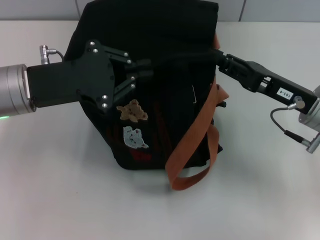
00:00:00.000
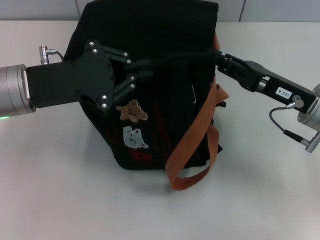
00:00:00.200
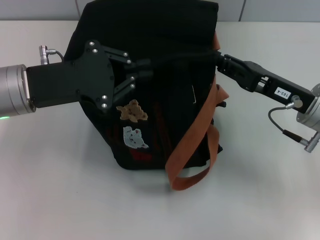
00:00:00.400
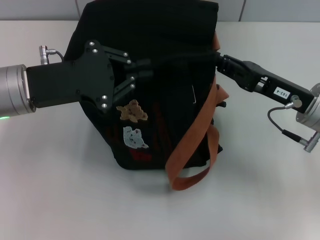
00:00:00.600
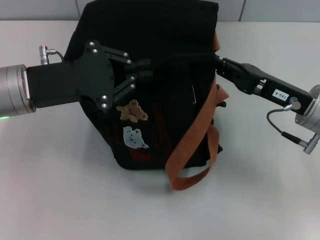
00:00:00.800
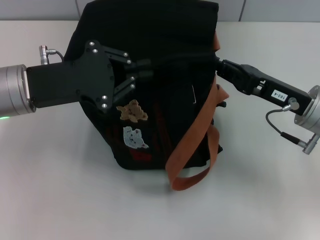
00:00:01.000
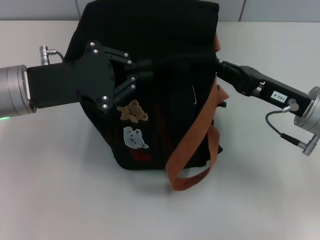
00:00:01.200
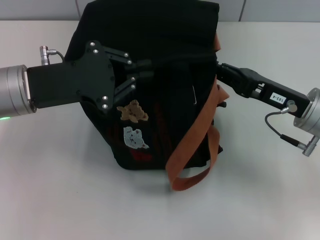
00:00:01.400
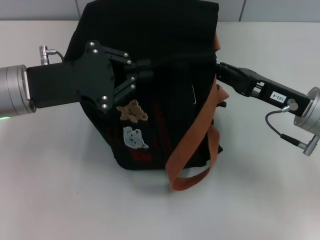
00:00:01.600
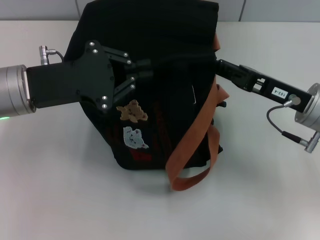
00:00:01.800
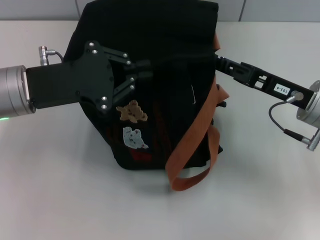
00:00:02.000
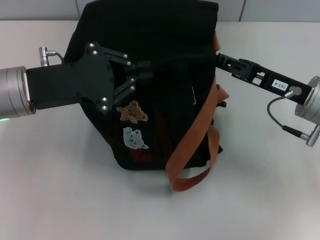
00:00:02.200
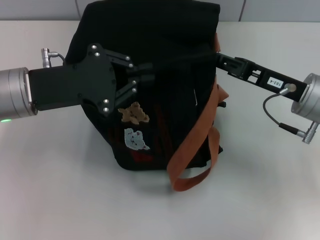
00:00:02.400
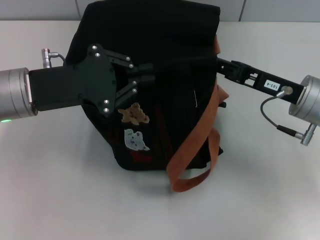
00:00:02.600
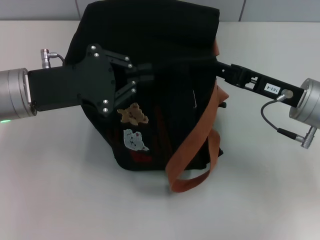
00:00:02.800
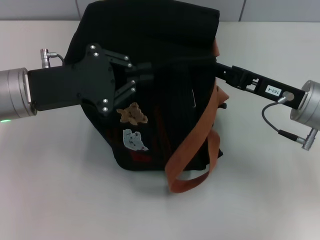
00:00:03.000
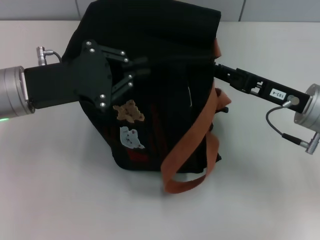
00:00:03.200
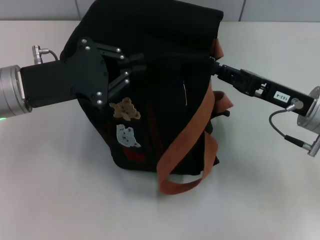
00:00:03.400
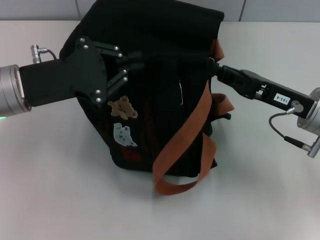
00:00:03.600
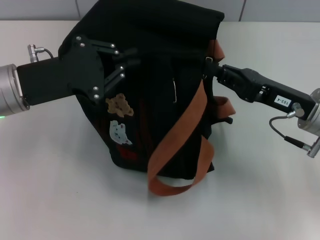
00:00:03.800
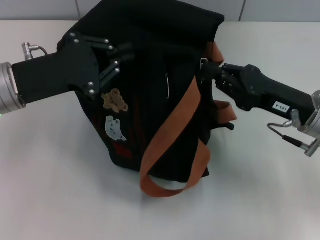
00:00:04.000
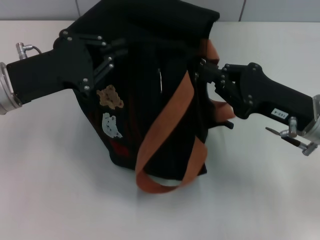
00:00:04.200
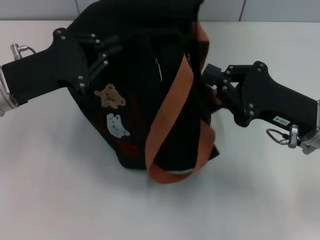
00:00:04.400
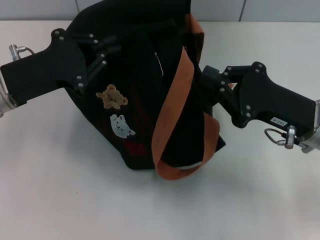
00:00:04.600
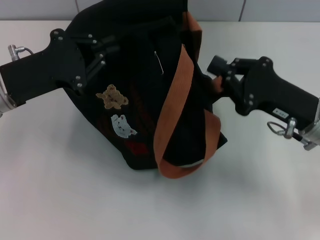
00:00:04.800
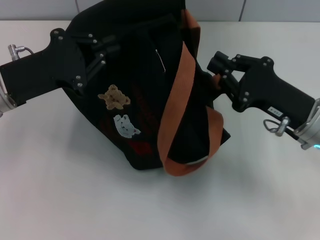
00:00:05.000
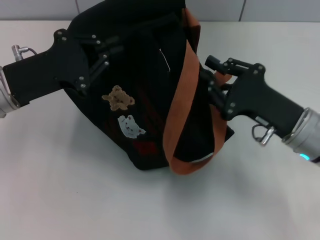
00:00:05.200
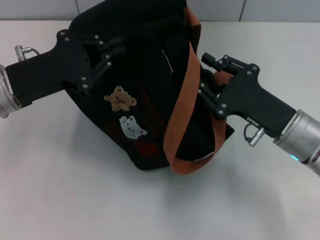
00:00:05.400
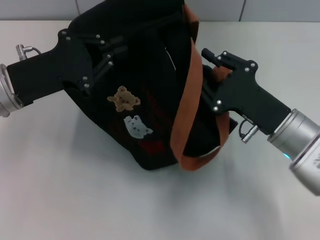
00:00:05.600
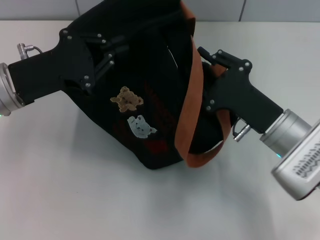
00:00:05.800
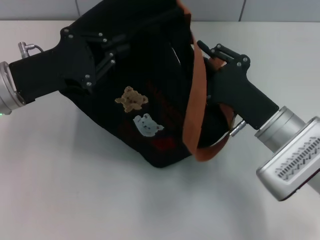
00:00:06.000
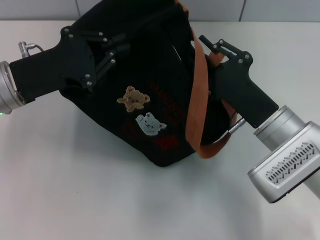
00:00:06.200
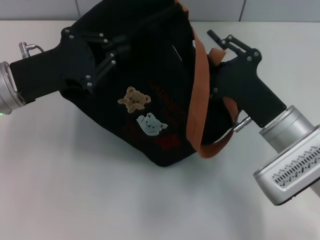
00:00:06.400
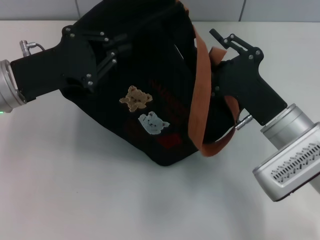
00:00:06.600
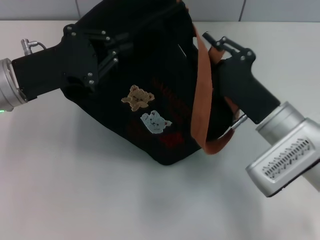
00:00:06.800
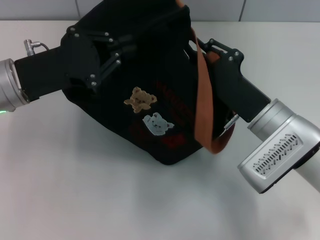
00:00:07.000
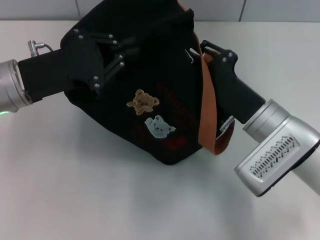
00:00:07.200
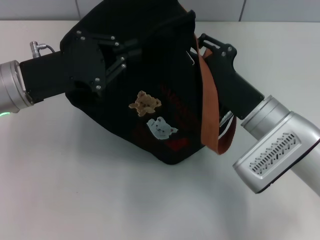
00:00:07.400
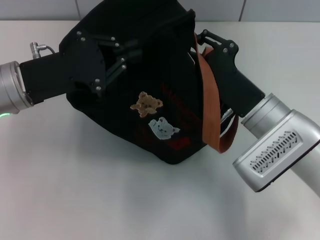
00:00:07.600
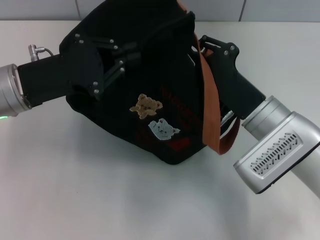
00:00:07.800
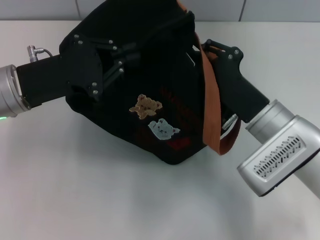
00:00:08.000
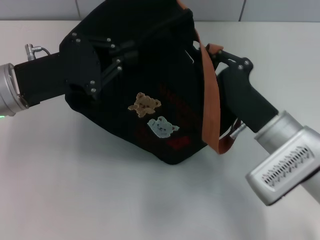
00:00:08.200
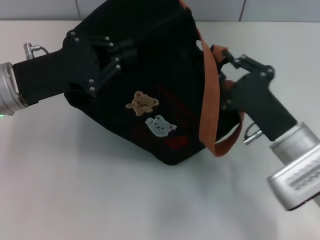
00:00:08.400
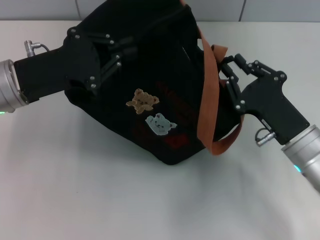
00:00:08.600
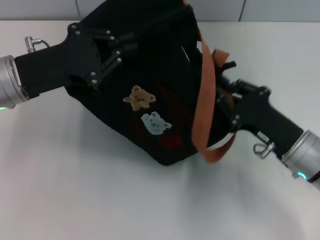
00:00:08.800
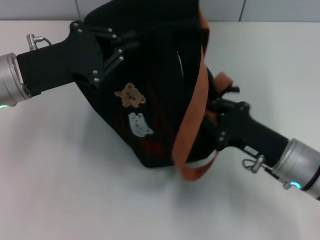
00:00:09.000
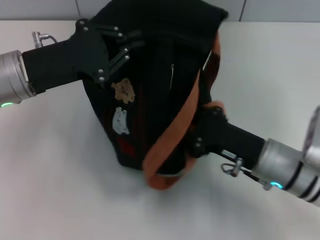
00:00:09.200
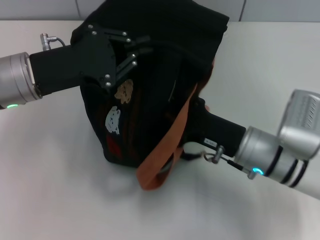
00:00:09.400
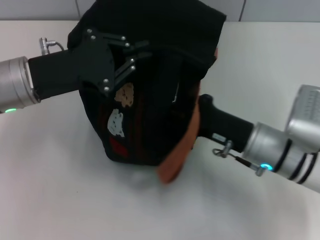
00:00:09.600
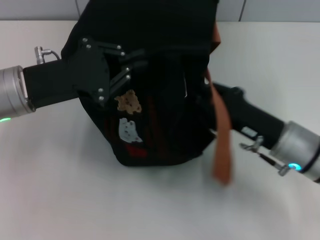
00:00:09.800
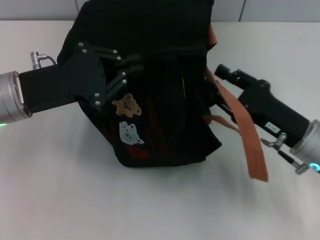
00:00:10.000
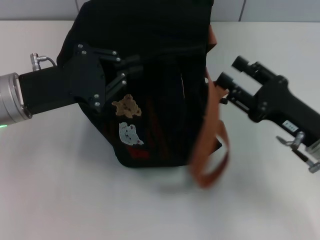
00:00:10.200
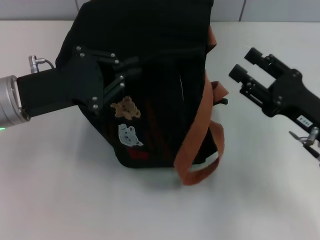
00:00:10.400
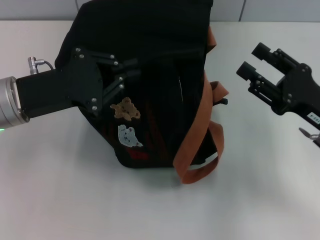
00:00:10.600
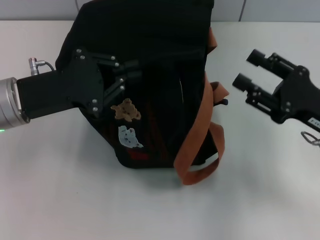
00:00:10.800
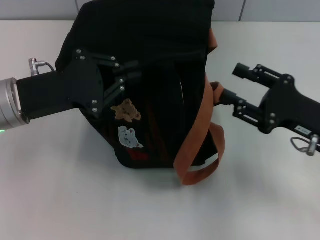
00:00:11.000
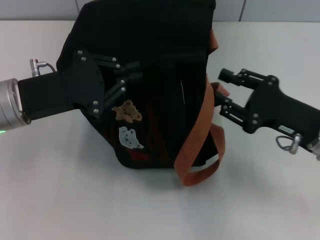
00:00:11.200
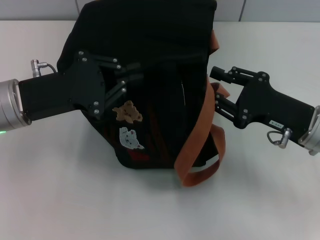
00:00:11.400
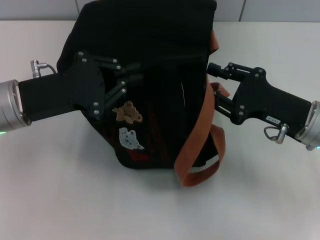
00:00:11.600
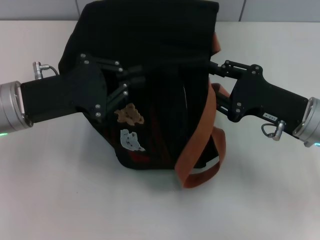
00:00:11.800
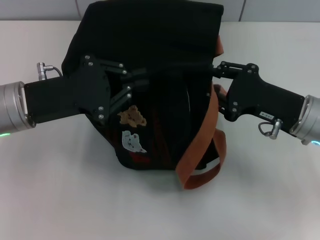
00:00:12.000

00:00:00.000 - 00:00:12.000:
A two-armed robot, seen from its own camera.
00:00:00.000 - 00:00:01.600: The two grippers keep their place.
00:00:01.600 - 00:00:03.000: The grippers move only a little.
00:00:04.400 - 00:00:06.000: The right gripper changes place by about 5 cm, and opens.
00:00:06.000 - 00:00:07.600: There are only small adjustments of the grippers.
00:00:07.600 - 00:00:09.000: The right gripper heads to the right, covering roughly 5 cm.
00:00:09.000 - 00:00:10.400: The right gripper moves some 5 cm, and opens its fingers.

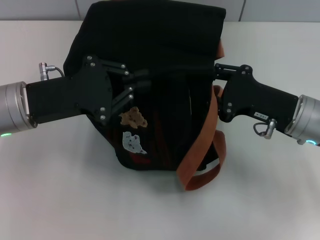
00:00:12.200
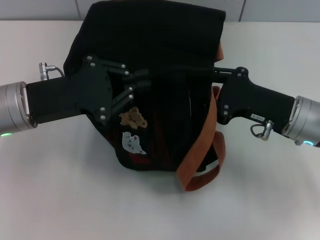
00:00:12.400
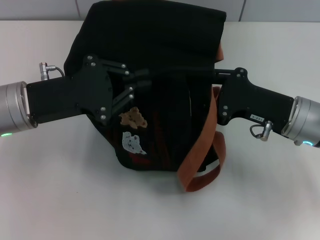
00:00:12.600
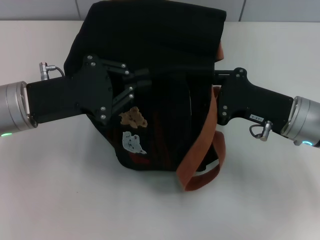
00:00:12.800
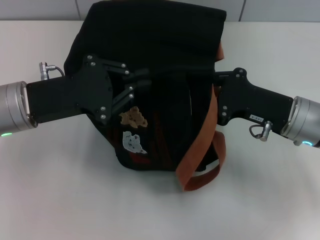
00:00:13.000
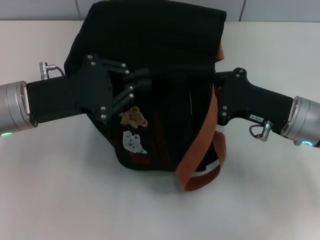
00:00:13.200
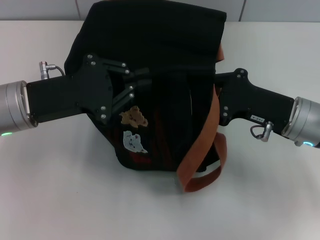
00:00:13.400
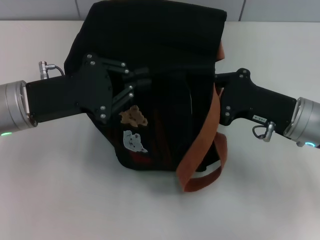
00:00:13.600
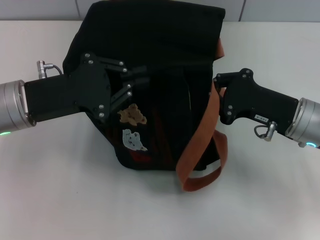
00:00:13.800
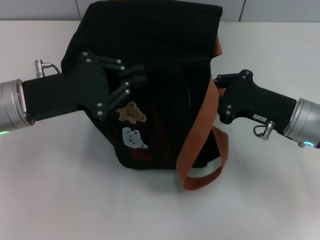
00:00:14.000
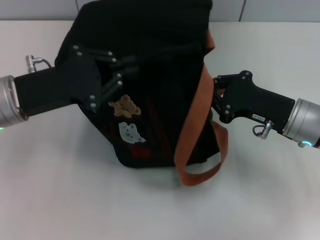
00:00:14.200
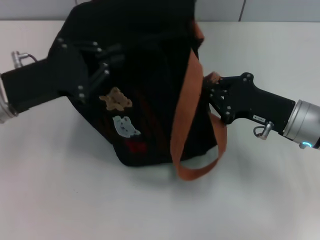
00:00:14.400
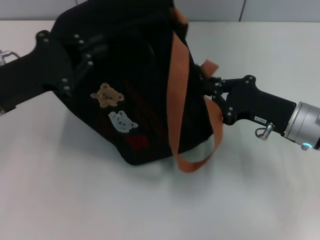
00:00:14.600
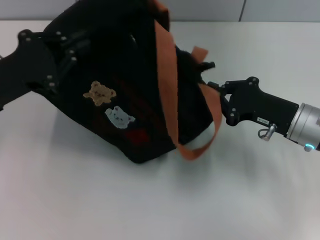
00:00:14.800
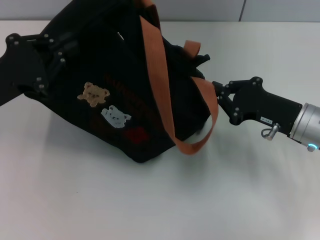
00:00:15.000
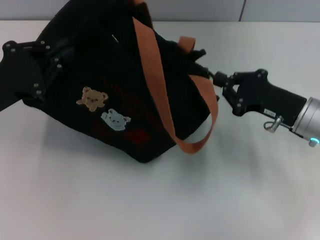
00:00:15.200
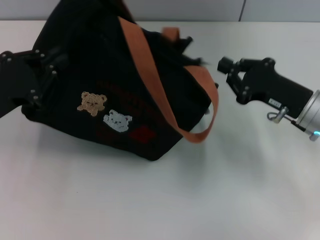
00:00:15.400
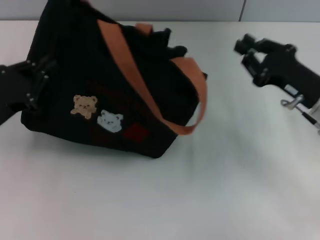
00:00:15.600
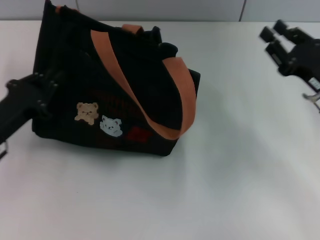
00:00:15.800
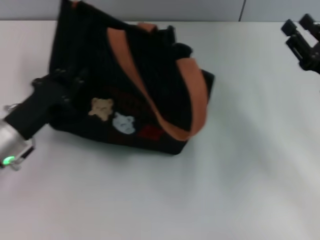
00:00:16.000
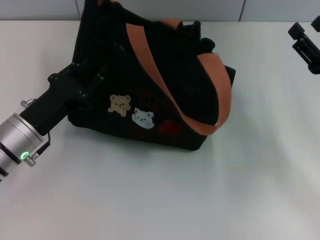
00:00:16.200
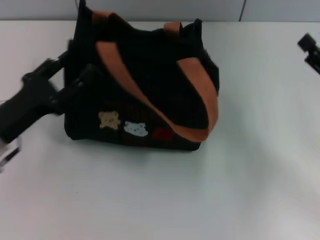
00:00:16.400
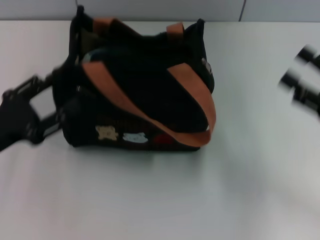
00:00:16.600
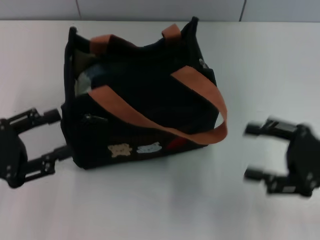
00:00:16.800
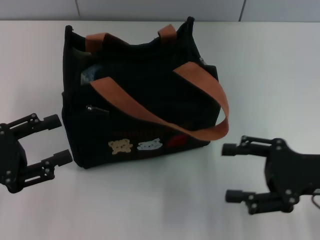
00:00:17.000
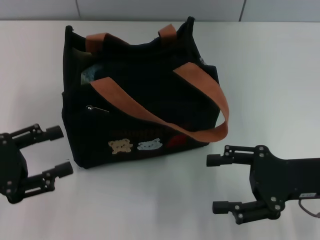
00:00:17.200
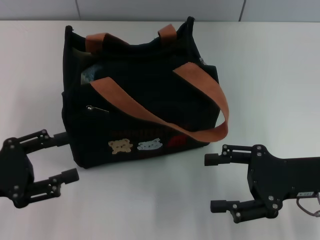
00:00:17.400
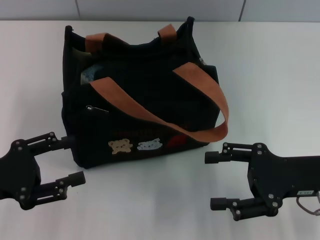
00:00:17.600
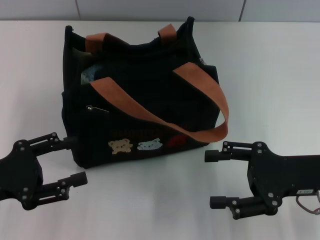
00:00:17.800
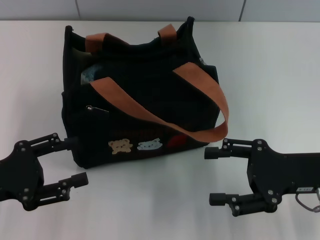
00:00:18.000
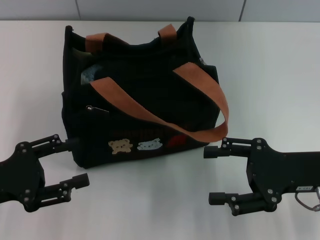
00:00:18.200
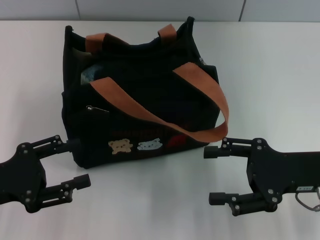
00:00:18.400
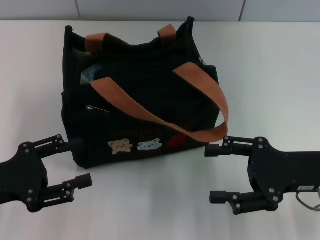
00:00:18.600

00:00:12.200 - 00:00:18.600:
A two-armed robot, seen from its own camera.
Step, 00:00:12.200 - 00:00:15.400: Pull open the zipper with your right hand.
Step, 00:00:15.800 - 00:00:16.600: Grab the bag with your left hand.
00:00:12.200 - 00:00:13.800: The right gripper closes its fingers.
00:00:13.800 - 00:00:15.400: The left gripper goes roughly 5 cm to the left.
00:00:15.400 - 00:00:17.000: The two grippers go about 5 cm backward. The right gripper opens. The left gripper goes to the right and returns, approximately 5 cm each way, and opens its fingers.
00:00:17.000 - 00:00:18.600: The grippers move only a little.
